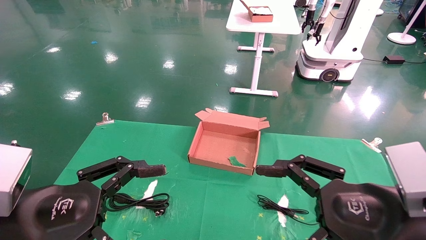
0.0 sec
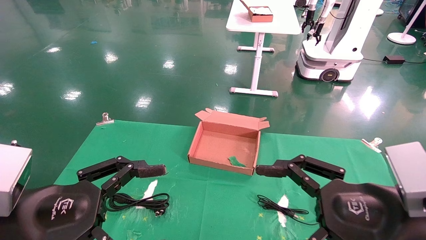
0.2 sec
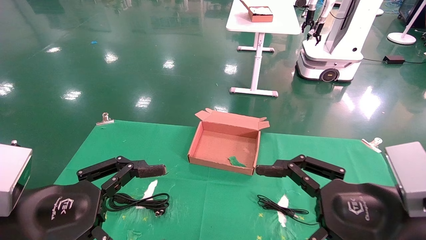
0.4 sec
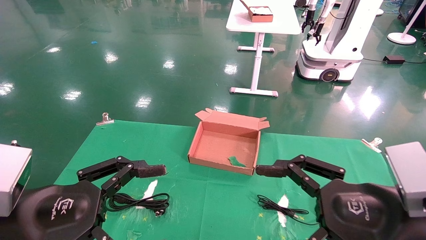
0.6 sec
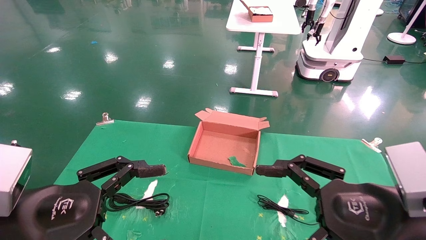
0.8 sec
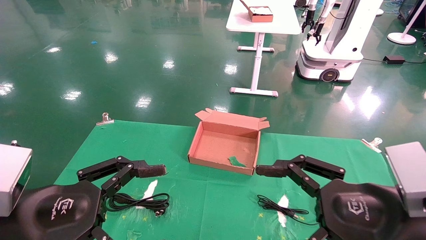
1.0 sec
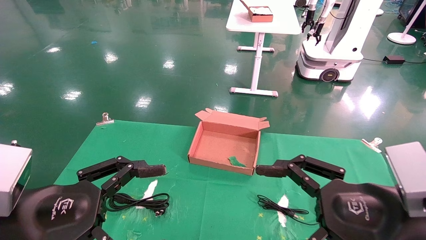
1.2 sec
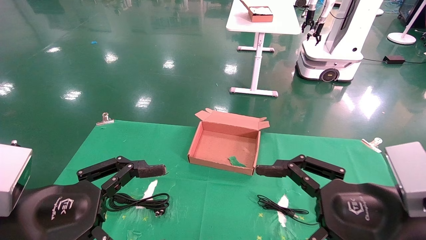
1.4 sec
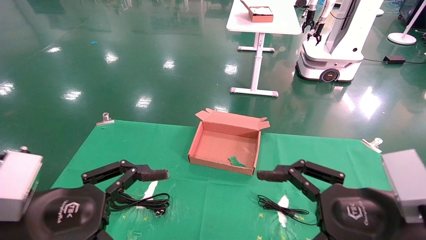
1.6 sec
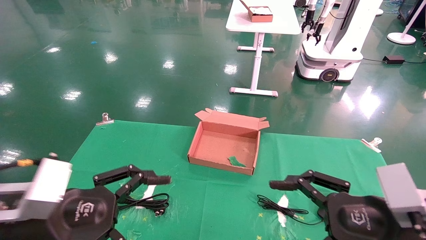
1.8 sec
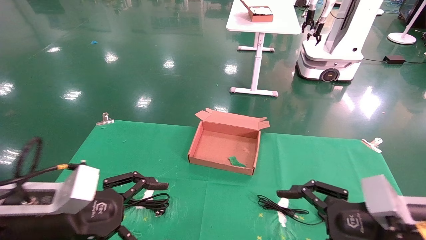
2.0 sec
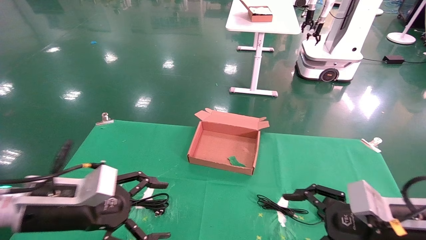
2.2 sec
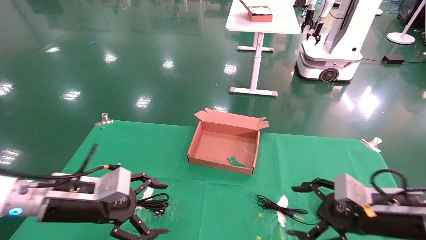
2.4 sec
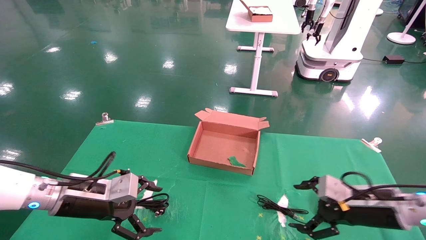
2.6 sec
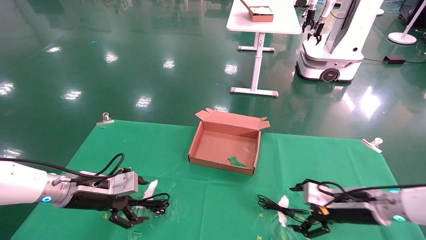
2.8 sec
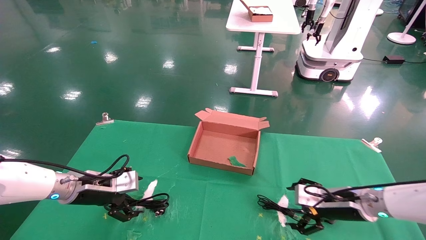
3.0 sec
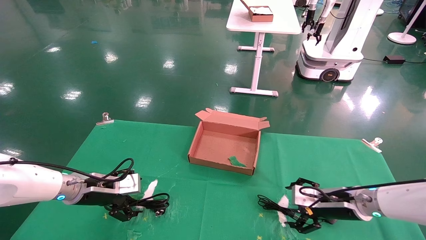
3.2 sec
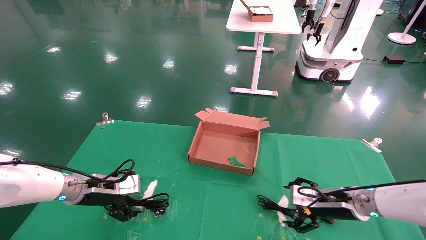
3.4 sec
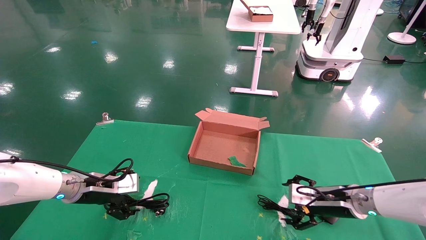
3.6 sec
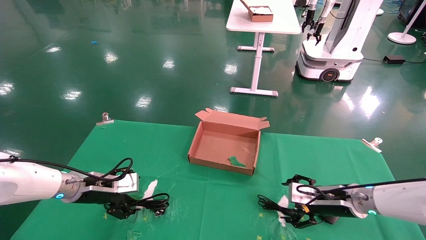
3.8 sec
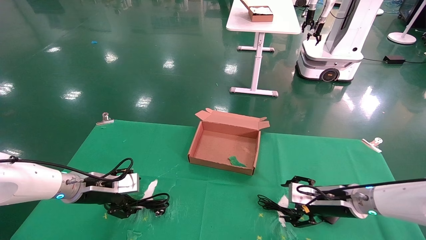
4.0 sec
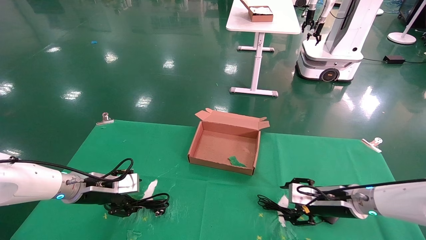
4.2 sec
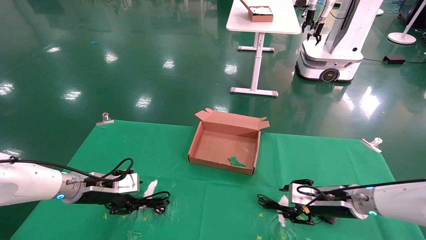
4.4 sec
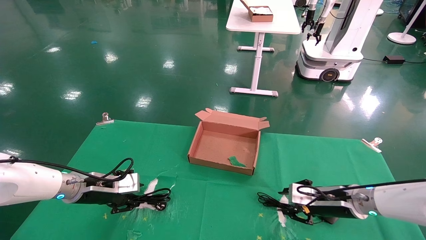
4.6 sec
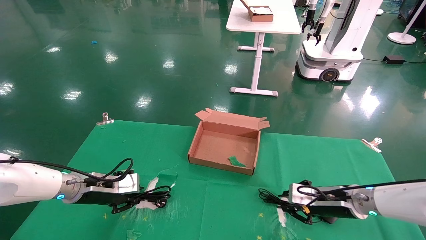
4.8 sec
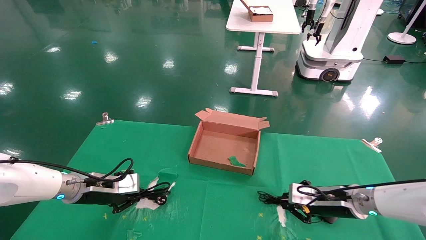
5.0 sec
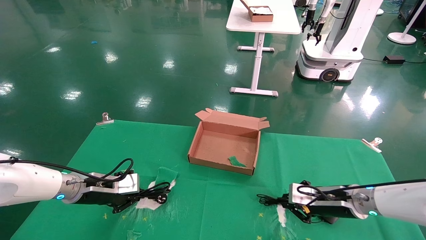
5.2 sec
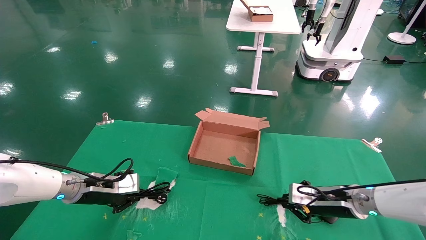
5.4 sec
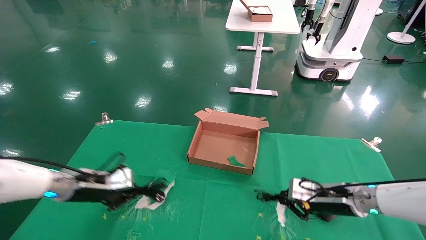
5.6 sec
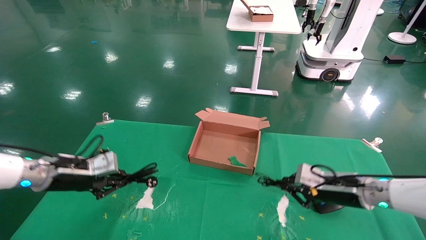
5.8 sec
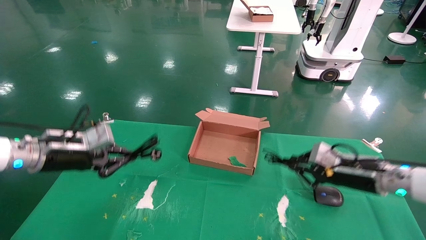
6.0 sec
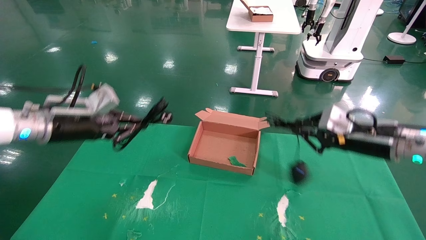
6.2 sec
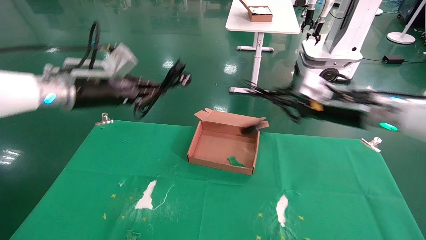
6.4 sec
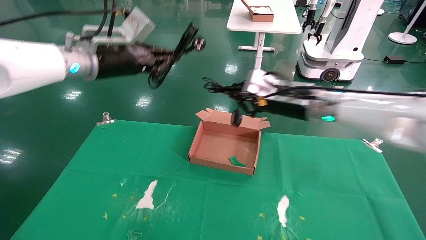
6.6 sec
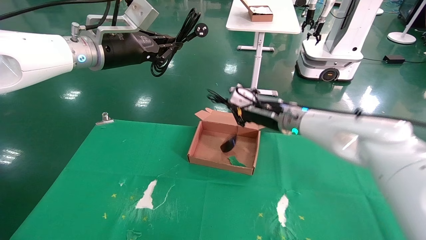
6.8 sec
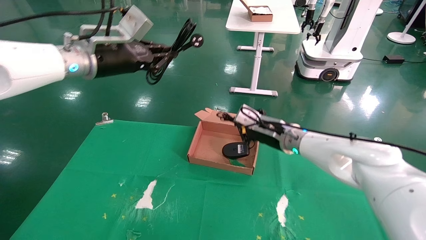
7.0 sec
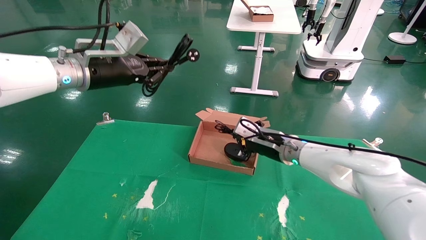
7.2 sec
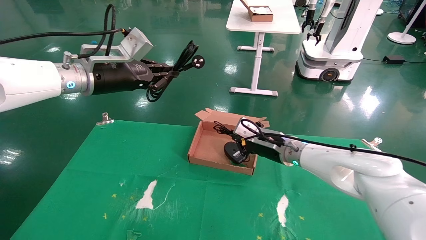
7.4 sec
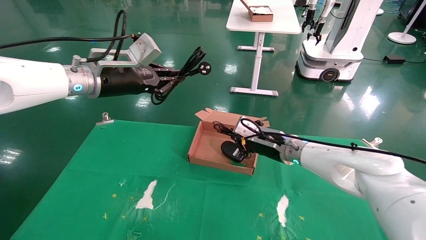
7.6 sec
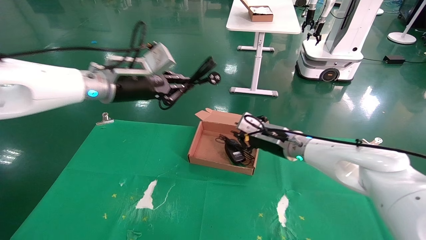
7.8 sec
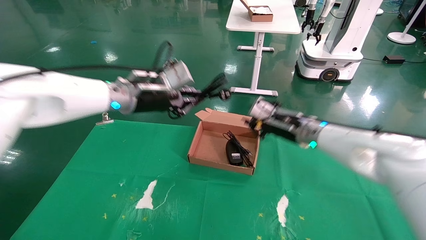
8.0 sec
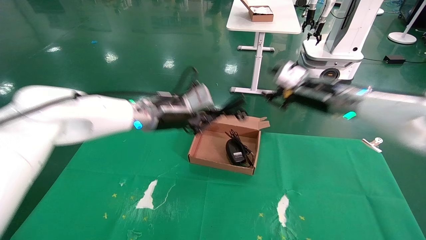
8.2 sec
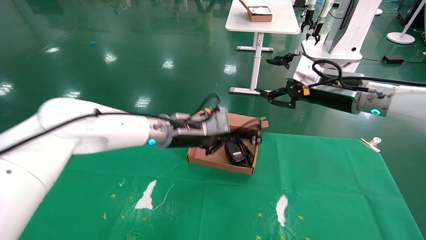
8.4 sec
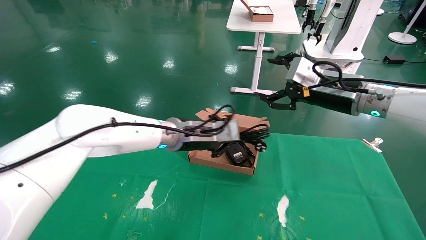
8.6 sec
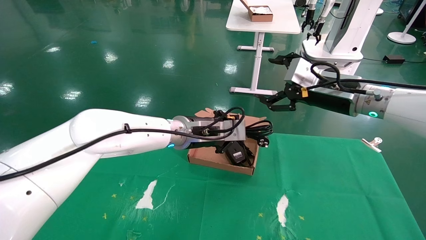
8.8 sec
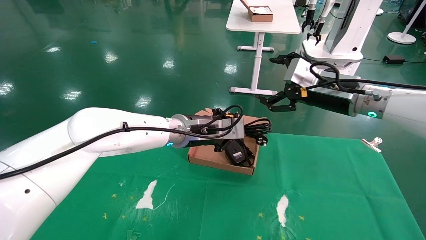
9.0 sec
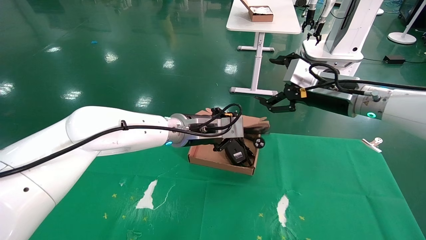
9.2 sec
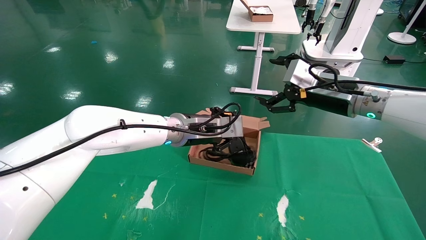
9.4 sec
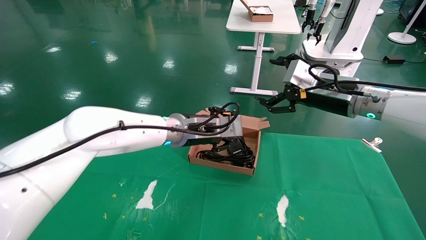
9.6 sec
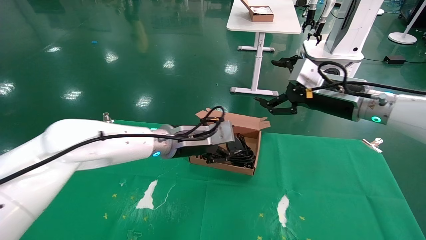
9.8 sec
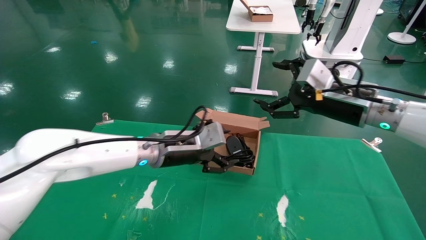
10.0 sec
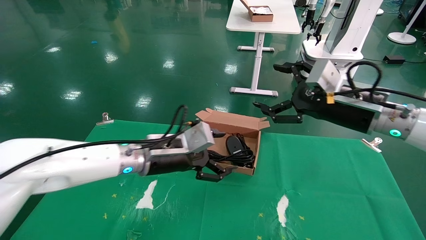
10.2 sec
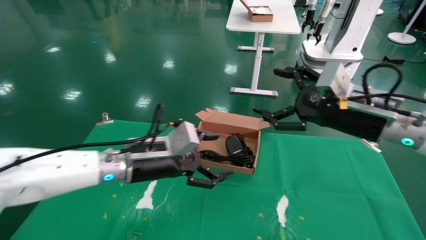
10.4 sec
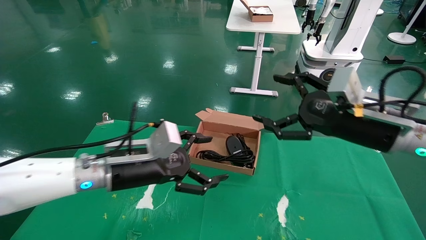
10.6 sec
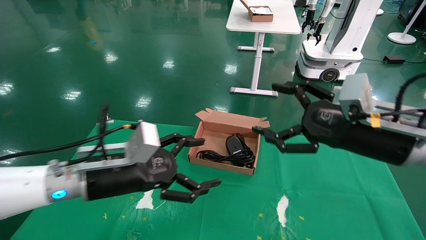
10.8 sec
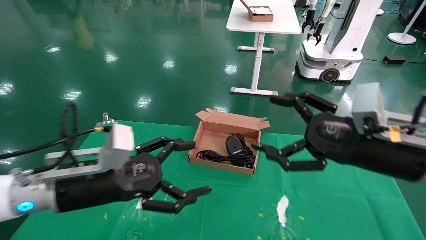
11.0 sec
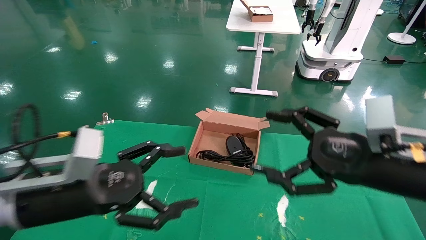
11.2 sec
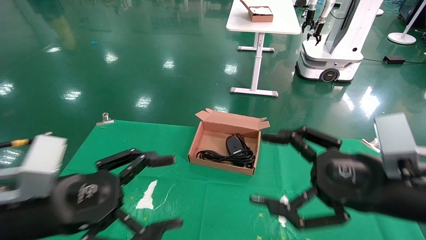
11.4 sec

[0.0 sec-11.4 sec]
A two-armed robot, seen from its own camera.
Step, 2.0 sec to 5.0 sec: Grab and lift both the mouse and power cord from the accessory packaging area at the same time.
Step, 5.2 sec to 10.2 sec: Place the mouse and power cord into the box.
0.0 sec to 1.4 sec: Both grippers stay put.
1.4 sec to 2.8 sec: The left gripper shifts approximately 20 cm forward. Meanwhile the right gripper travels forward and downward by some 25 cm.
2.8 sec to 4.2 sec: The grippers make only small movements.
4.2 sec to 5.6 sec: The right gripper closes its fingers. Meanwhile the left gripper closes up.
5.6 sec to 7.2 sec: The right gripper travels to the left, upward and forward by some 20 cm, while the left gripper moves upward and to the right, some 25 cm.
7.2 sec to 8.6 sec: The right gripper travels upward, to the right and backward by approximately 15 cm, and opens its fingers, while the left gripper travels to the right and downward by roughly 20 cm.
8.6 sec to 10.0 sec: The left gripper ends up about 5 cm from where it was, and opens up.
10.0 sec to 11.4 sec: The right gripper moves backward and downward, about 20 cm. The left gripper heads backward and to the left, covering approximately 25 cm, and opens.

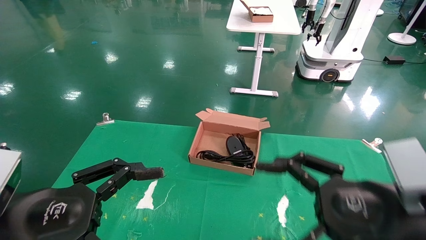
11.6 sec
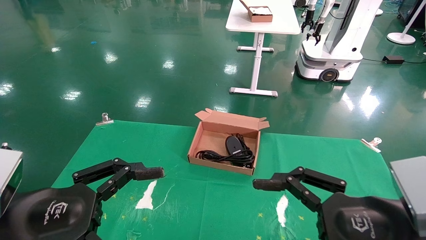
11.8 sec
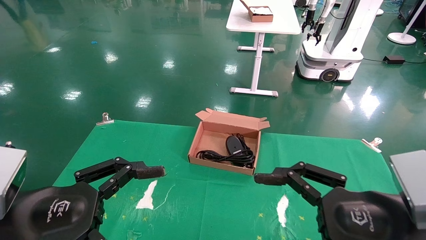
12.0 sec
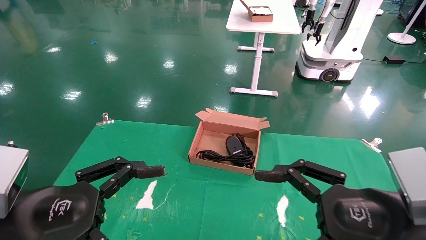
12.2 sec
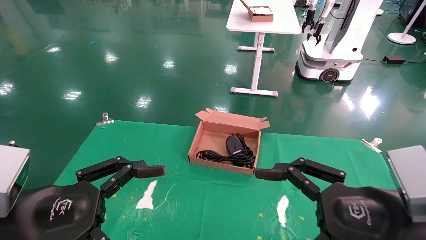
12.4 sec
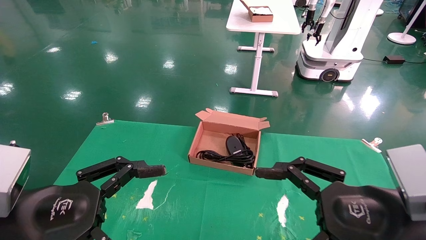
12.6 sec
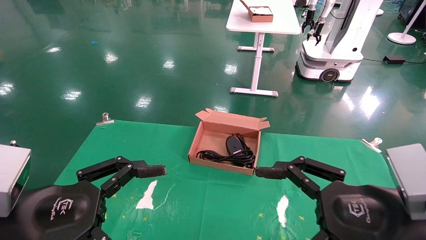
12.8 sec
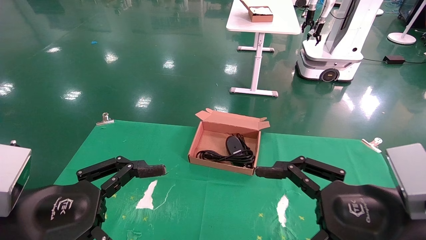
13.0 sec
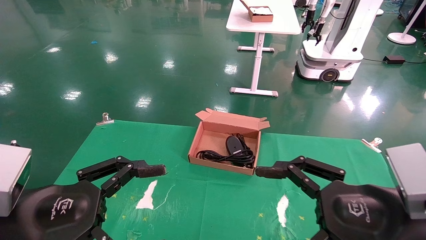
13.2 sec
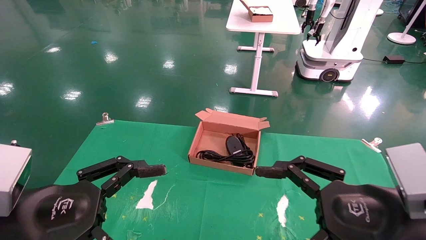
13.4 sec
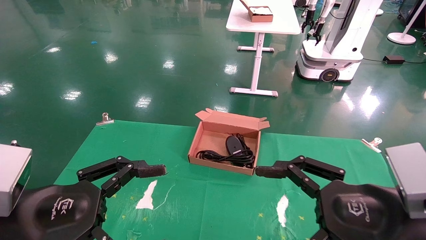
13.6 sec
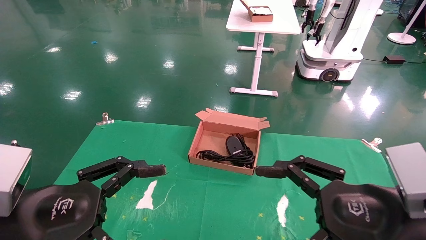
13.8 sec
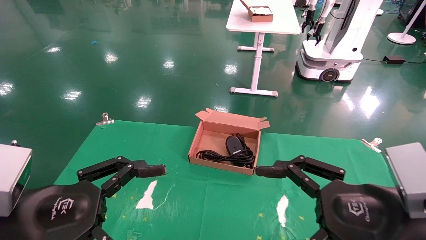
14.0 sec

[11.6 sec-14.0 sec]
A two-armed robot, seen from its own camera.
11.6 sec to 12.8 sec: The grippers stay close to where they were, moving slightly.
12.8 sec to 14.0 sec: The two grippers keep their place.

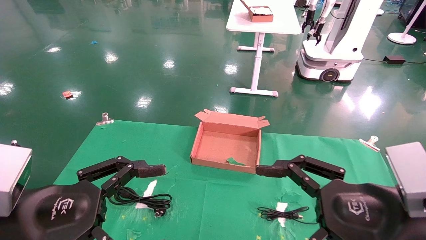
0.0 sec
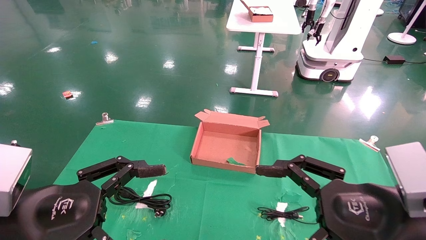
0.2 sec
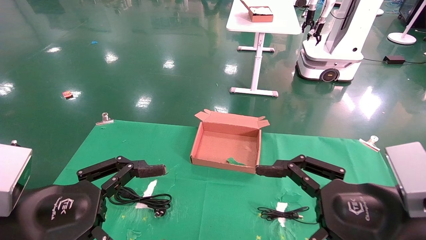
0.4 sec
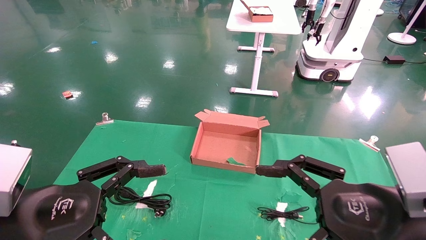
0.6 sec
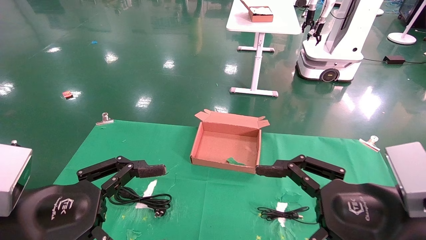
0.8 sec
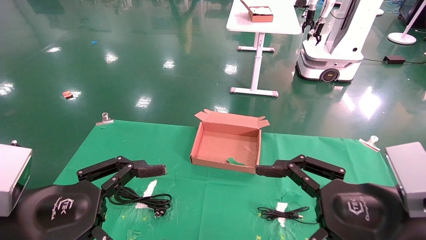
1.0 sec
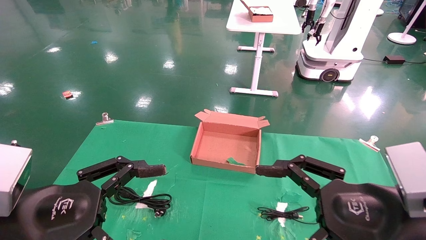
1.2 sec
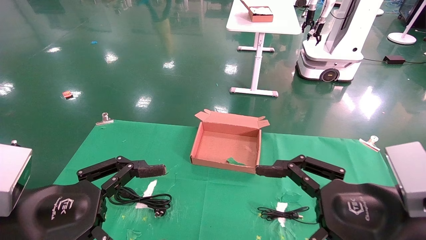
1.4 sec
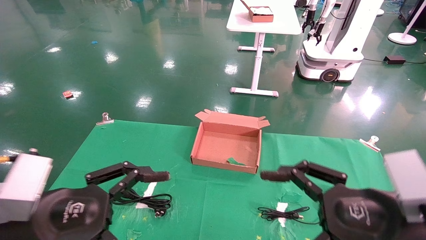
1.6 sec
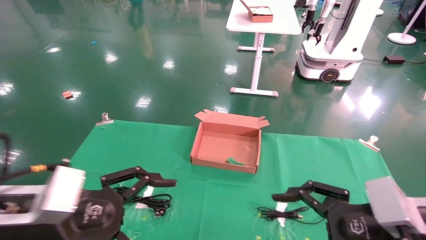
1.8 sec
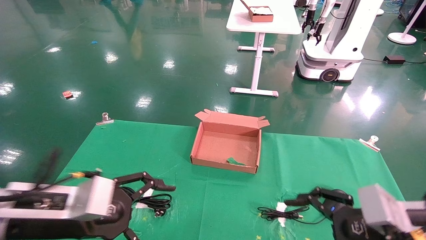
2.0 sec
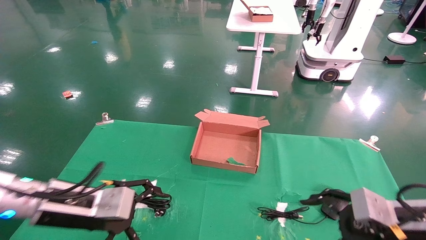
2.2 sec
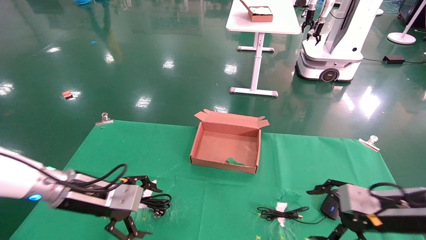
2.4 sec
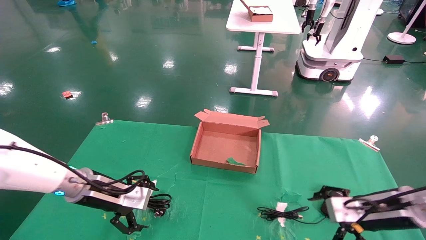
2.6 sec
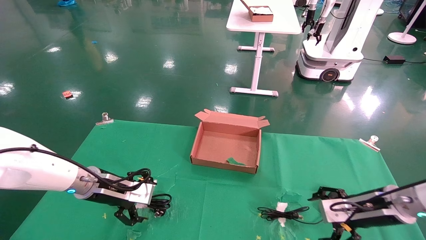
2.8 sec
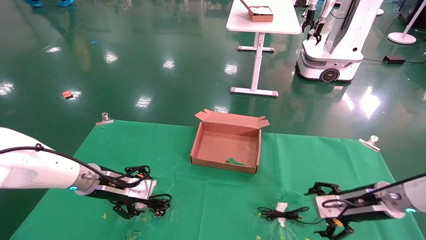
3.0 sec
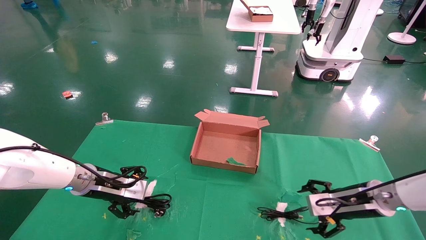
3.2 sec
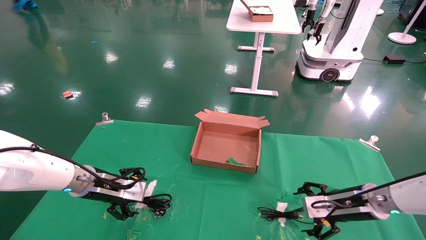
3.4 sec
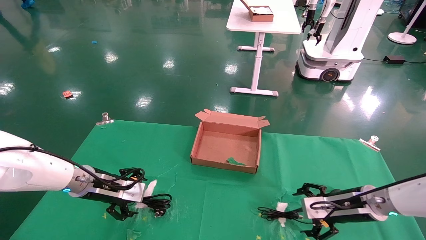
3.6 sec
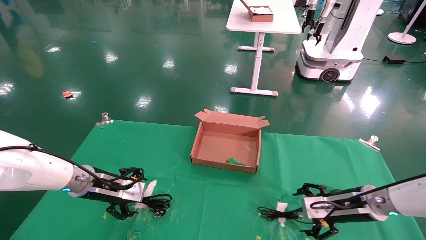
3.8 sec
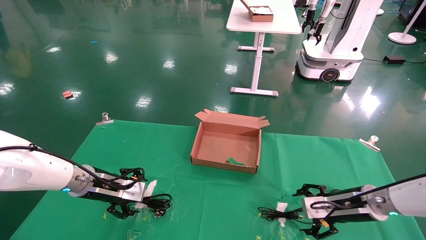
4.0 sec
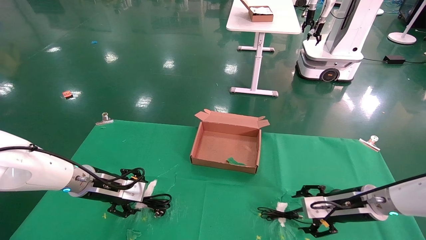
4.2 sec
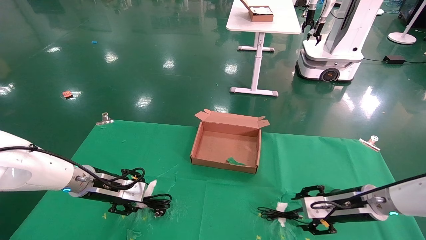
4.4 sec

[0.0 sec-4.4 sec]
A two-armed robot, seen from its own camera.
0.0 sec to 1.4 sec: Both grippers stay put.
1.4 sec to 3.0 sec: The left gripper is displaced forward by approximately 25 cm, while the right gripper moves forward and downward, about 25 cm.
3.0 sec to 4.4 sec: The grippers move only a little.
